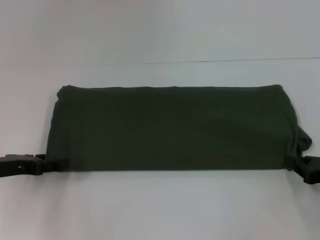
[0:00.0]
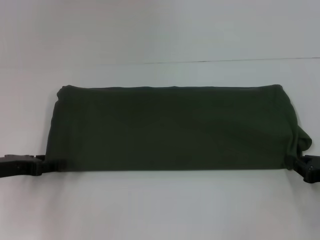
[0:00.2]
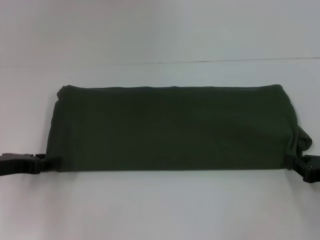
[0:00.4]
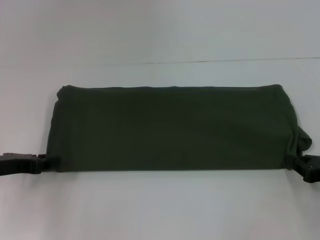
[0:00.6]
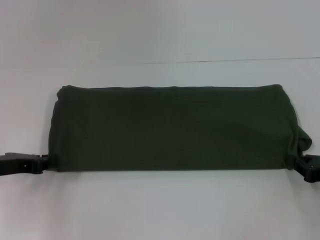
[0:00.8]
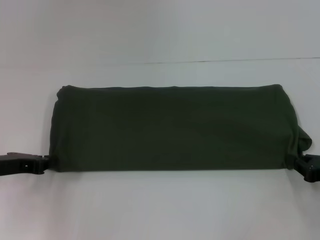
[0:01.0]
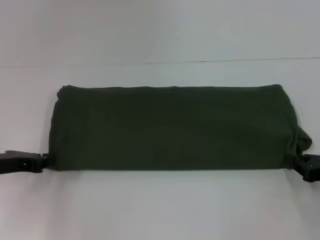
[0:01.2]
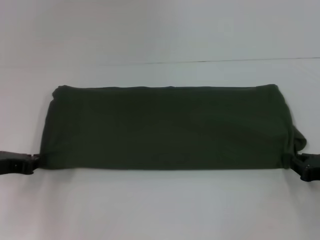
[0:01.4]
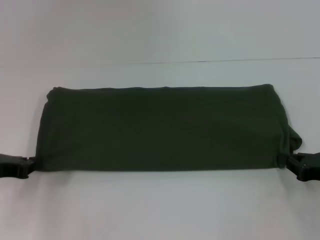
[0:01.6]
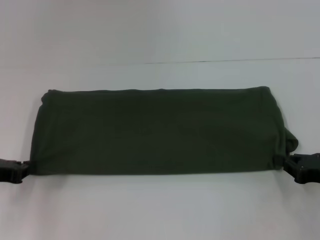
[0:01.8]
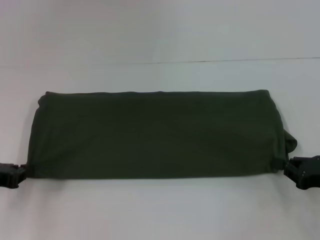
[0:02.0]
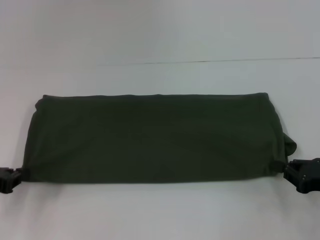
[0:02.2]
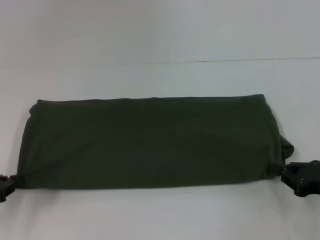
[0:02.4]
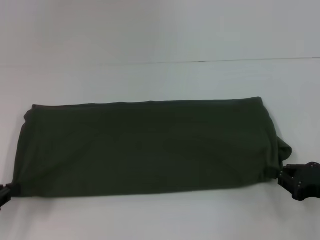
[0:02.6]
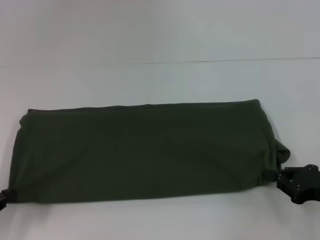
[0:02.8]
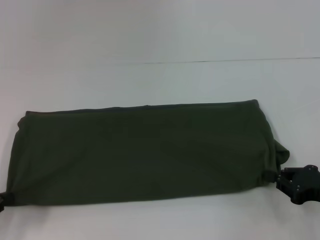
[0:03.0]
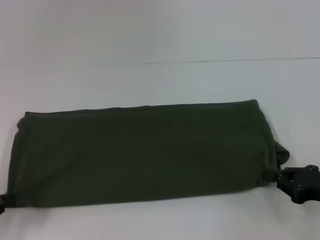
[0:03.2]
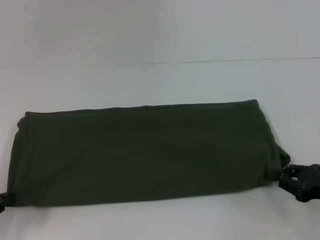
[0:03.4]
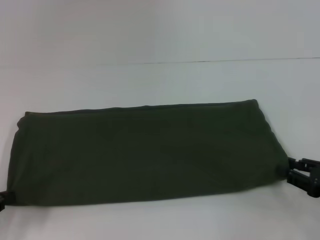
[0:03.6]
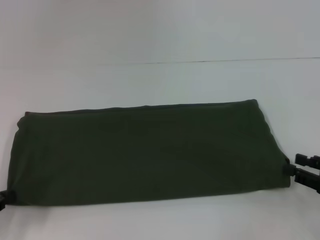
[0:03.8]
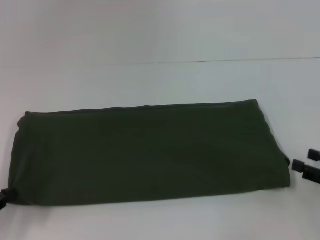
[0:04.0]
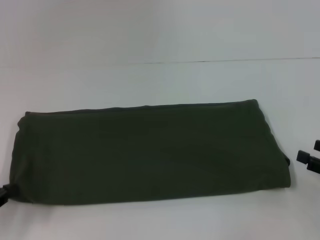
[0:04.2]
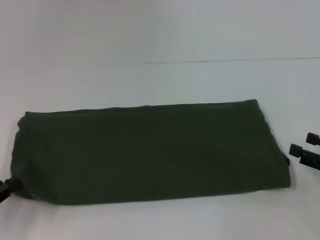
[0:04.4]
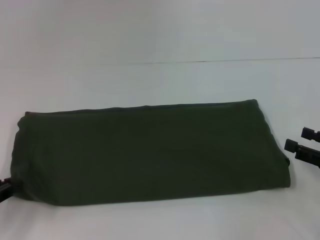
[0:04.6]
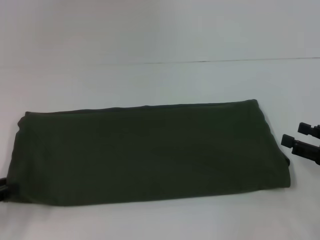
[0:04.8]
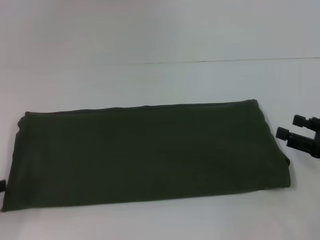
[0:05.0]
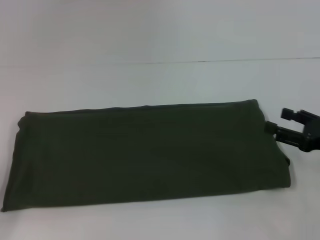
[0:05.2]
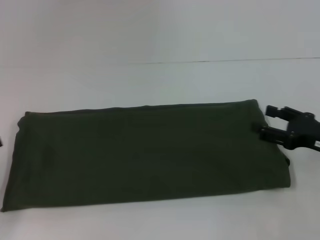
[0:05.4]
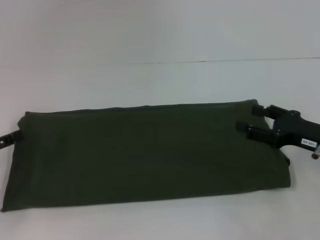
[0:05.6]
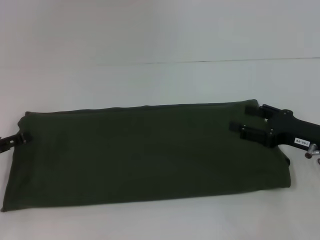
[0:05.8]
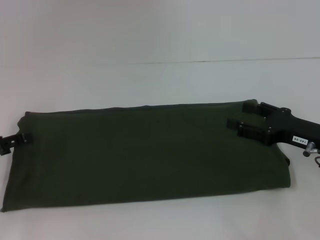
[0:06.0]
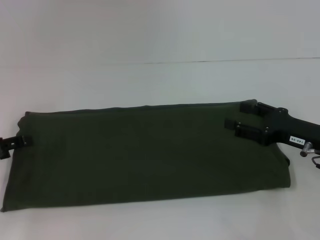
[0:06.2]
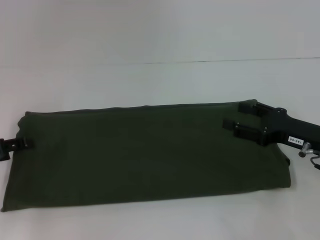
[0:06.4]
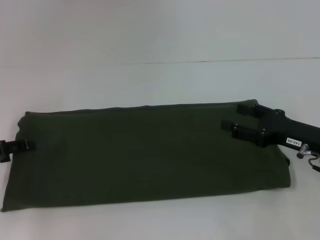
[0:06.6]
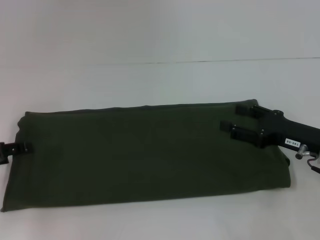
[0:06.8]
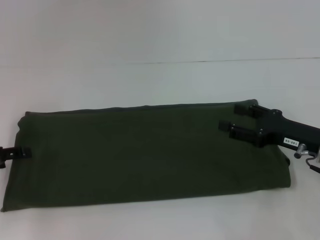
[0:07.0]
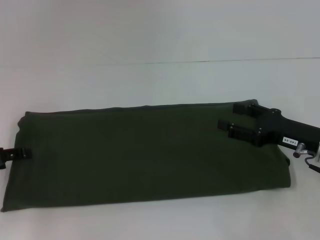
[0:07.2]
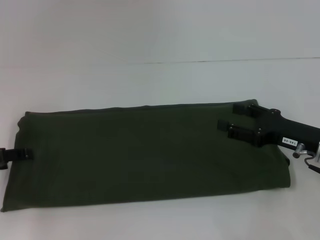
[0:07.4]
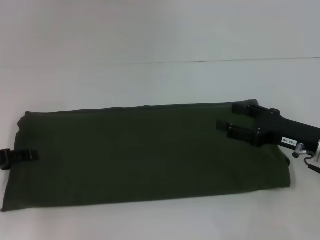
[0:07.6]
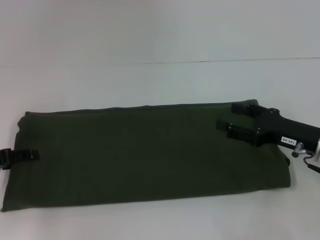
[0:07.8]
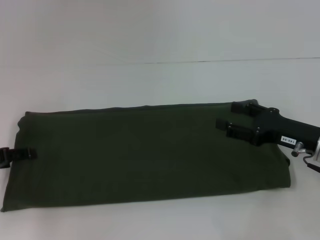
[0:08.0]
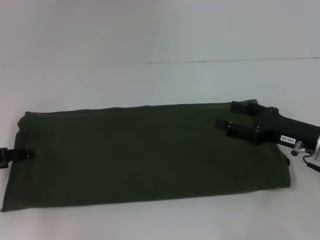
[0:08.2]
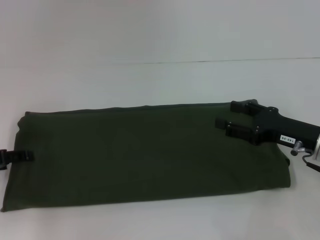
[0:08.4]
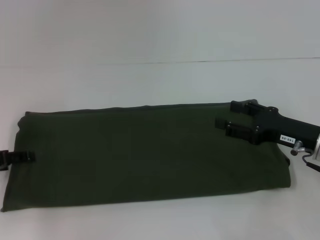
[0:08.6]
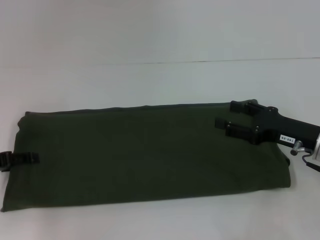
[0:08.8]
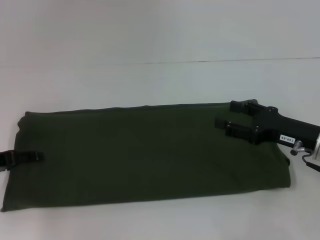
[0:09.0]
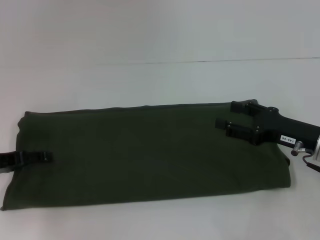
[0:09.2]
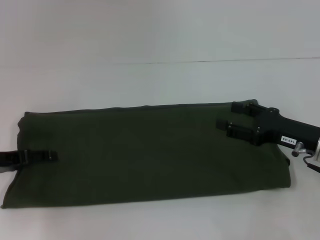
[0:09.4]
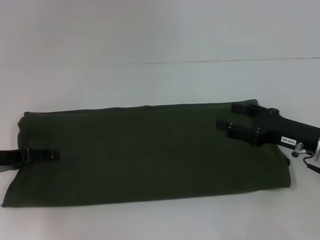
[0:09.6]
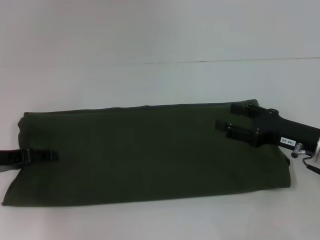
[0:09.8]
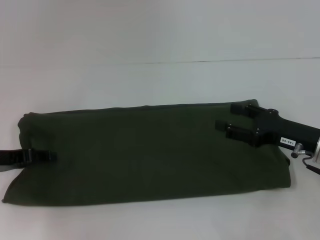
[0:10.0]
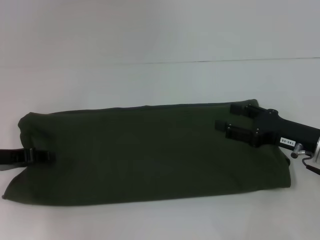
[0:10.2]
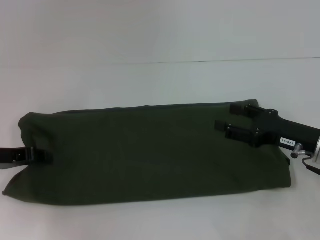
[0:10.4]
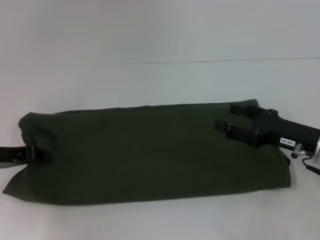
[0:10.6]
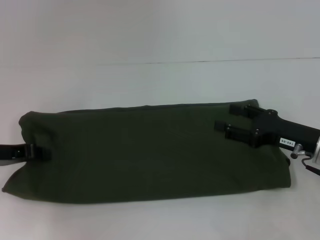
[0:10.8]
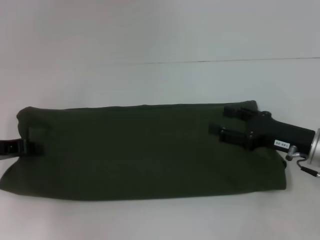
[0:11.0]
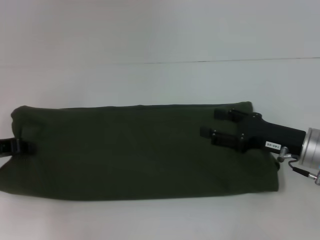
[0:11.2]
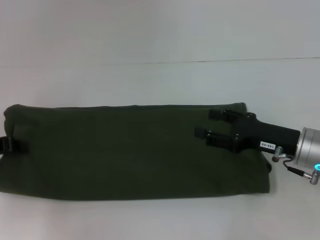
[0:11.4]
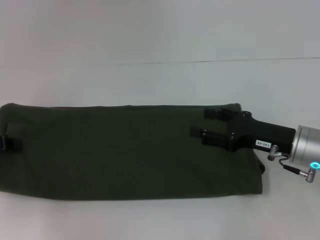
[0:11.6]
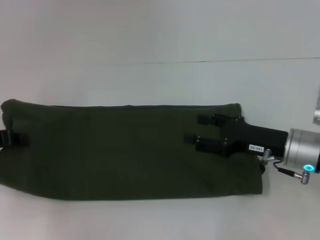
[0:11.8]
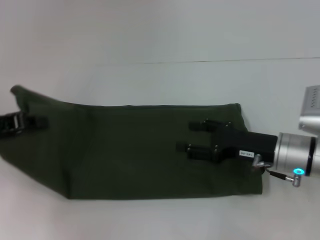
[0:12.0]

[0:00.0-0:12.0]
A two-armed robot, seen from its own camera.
Step, 0:00.0 to 0:04.8: Pull the clothes with your left hand.
Step, 0:00.0 to 0:04.8: Pull the clothes with your right hand.
0:00.0 to 0:01.6: The left gripper closes its fingers.
0:01.6 to 0:03.0: The left gripper shifts roughly 10 cm backward.
0:03.0 to 0:04.4: The right gripper opens up.
0:04.4 to 0:06.0: The right gripper moves to the left and forward, roughly 10 cm. The left gripper is displaced forward by approximately 5 cm, and opens its fingers.
0:06.0 to 0:07.6: The grippers move only a little.
0:07.6 to 0:09.0: The two grippers keep their place.
0:09.0 to 0:10.4: The left gripper closes up.
0:10.4 to 0:12.0: The right gripper heads to the left, covering some 5 cm; the left gripper heads upward, covering roughly 5 cm, and closes up.

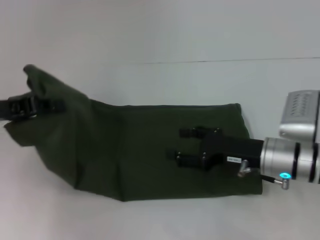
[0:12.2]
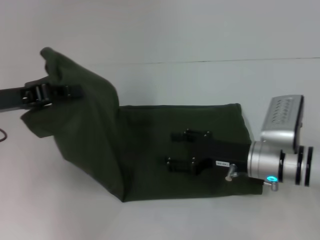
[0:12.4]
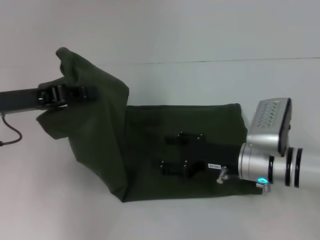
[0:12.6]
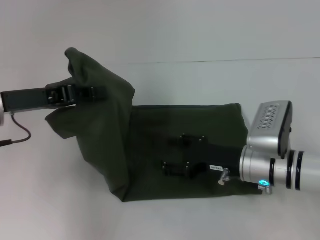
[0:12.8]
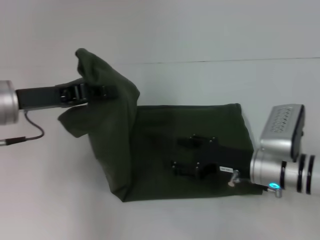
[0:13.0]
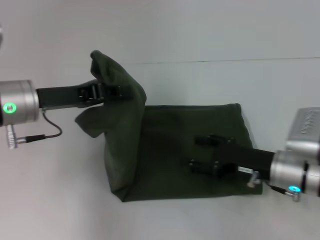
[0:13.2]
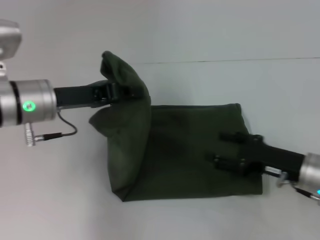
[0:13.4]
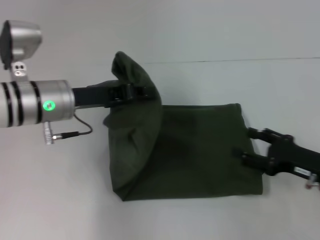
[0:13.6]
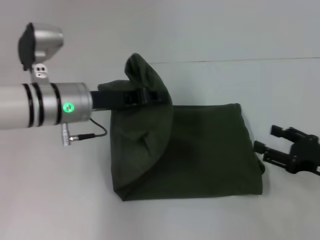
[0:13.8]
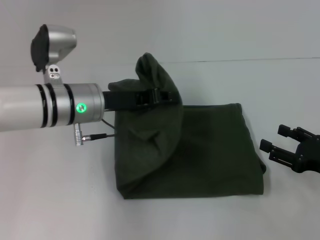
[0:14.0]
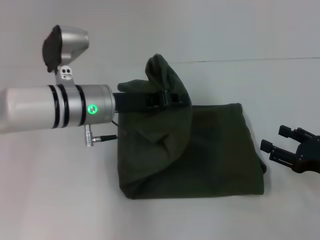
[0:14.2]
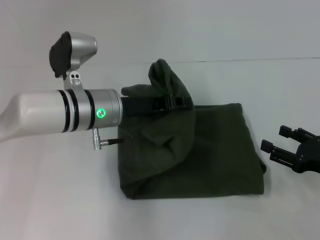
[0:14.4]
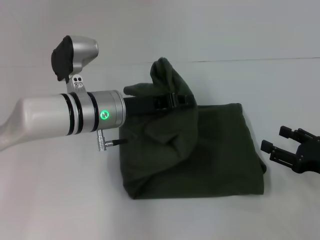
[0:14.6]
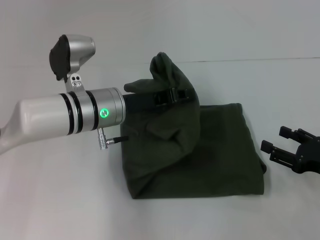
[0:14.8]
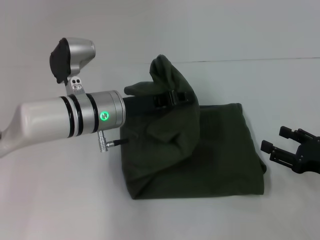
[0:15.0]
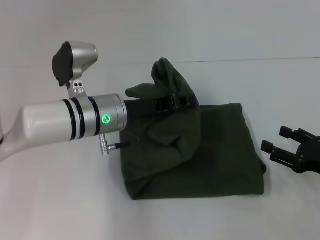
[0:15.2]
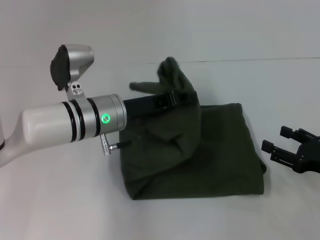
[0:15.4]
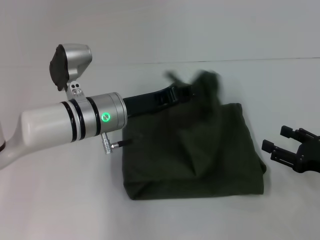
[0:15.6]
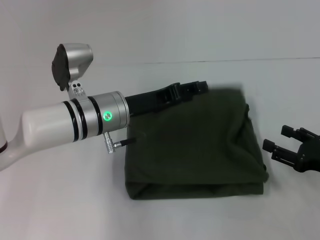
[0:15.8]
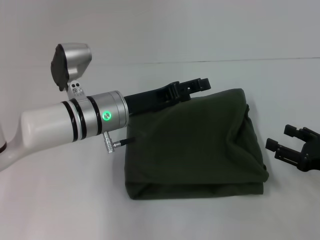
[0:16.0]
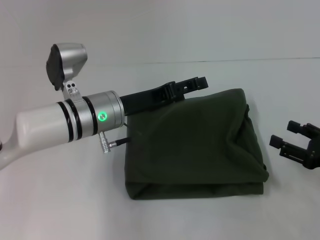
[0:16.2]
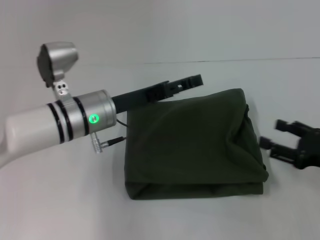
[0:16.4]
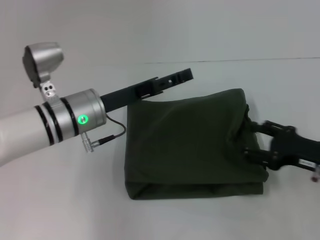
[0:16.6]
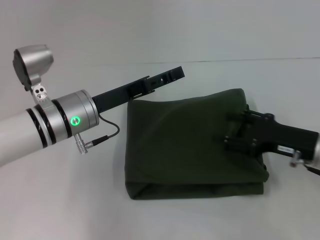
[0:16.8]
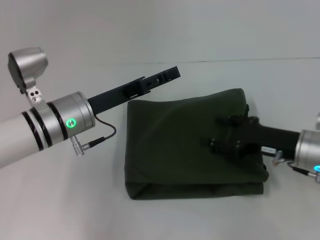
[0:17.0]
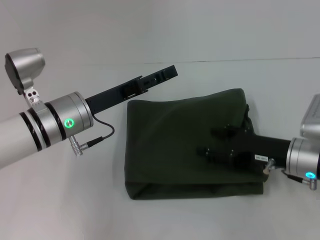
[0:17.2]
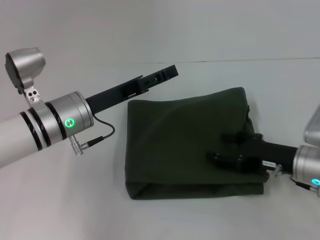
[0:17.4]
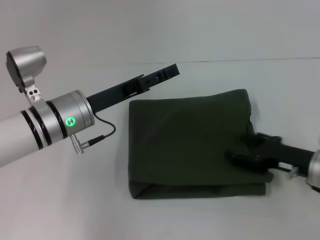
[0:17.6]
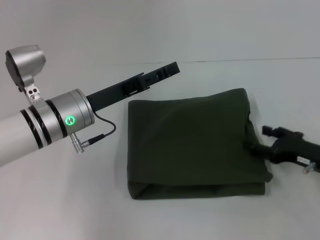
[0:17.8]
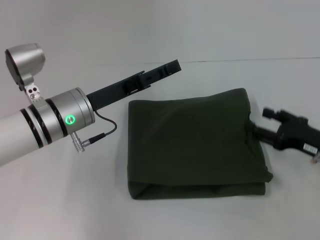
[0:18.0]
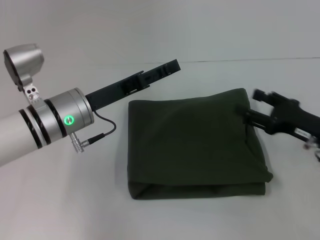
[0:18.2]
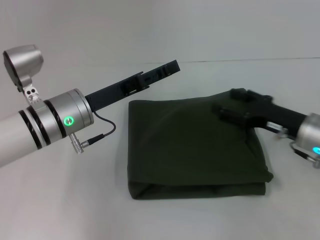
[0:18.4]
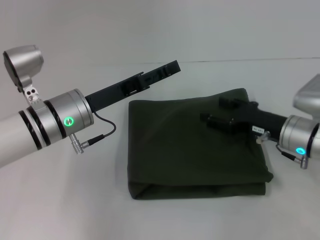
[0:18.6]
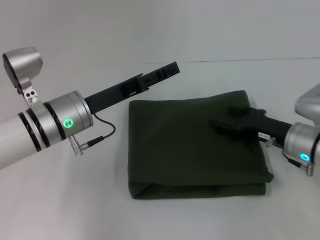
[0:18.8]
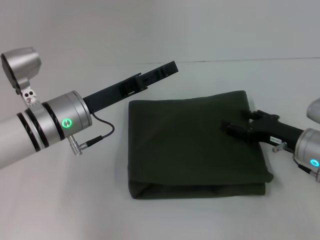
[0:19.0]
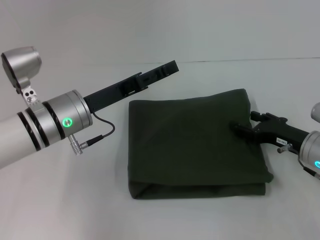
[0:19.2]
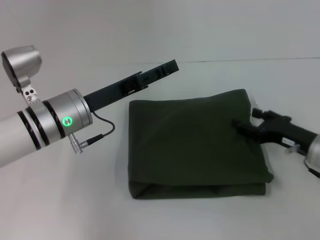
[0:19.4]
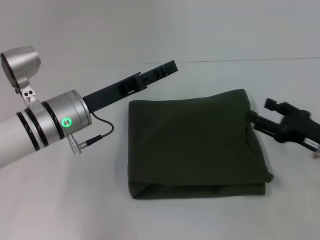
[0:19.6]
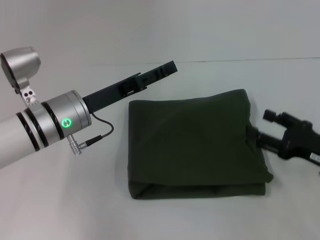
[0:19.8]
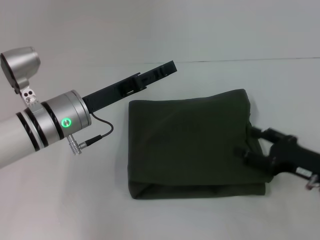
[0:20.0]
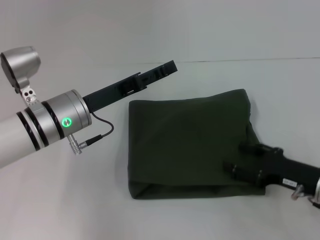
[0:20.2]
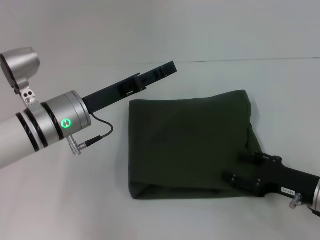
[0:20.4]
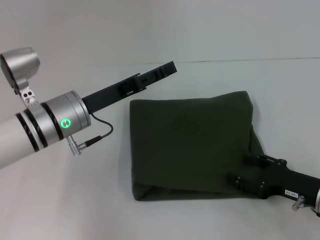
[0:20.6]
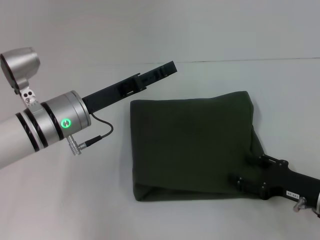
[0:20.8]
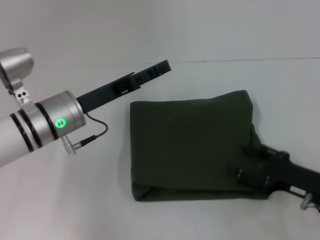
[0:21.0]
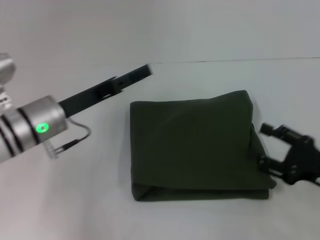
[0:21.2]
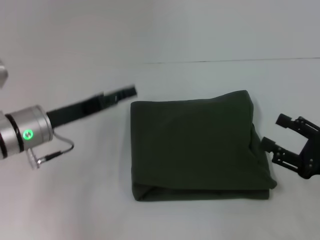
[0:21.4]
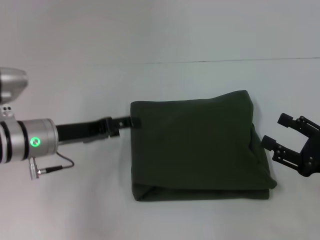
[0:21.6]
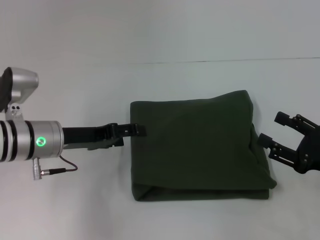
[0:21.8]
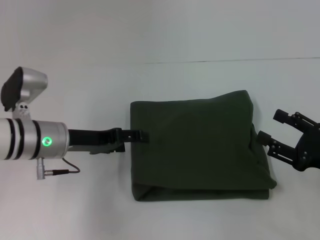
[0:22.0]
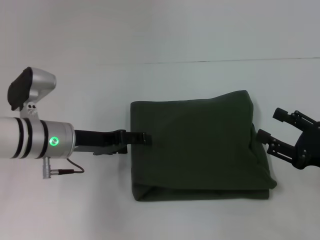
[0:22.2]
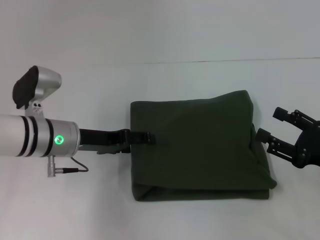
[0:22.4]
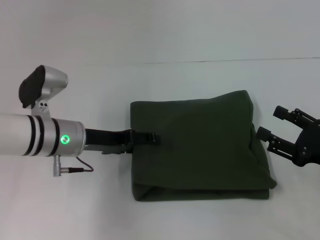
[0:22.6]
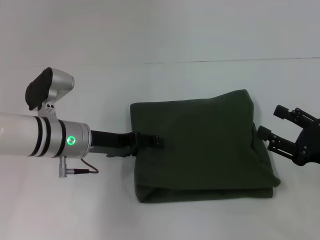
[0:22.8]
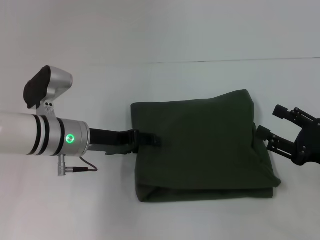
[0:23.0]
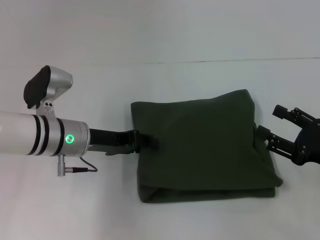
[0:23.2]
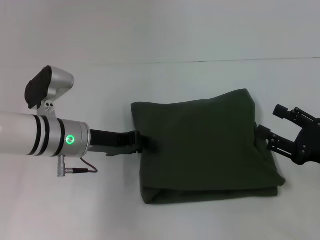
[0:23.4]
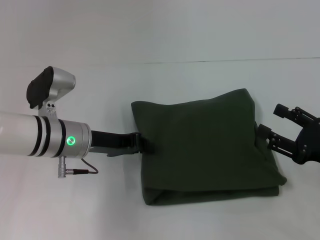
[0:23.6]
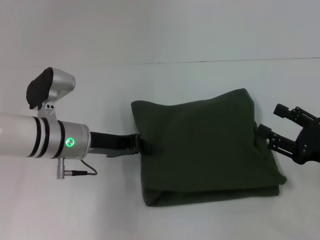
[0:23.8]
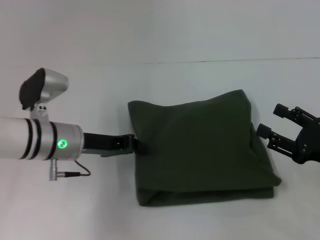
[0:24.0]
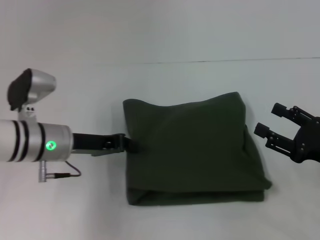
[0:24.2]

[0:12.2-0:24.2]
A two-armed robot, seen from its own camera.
Step, 0:12.2 to 0:16.0: Fold the clothes with your left hand.
0:12.2 to 0:13.8: The right gripper goes approximately 15 cm to the right and backward. Meanwhile the left gripper moves to the right, roughly 15 cm.
0:13.8 to 0:15.2: The left gripper ends up some 5 cm from where it was.
0:15.2 to 0:16.6: The left gripper opens.
0:19.8 to 0:21.2: There are only small adjustments of the grippers.
0:22.6 to 0:24.2: The left gripper closes up.
